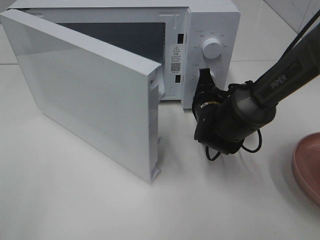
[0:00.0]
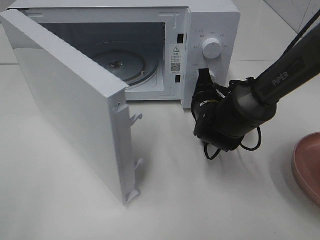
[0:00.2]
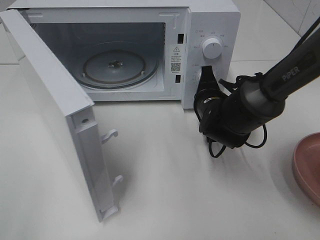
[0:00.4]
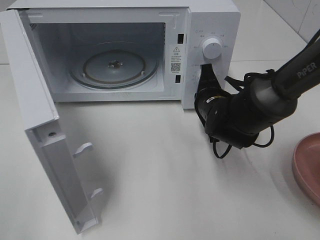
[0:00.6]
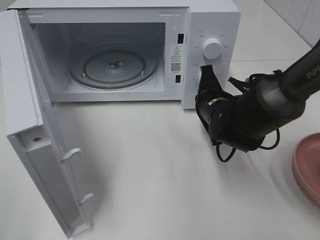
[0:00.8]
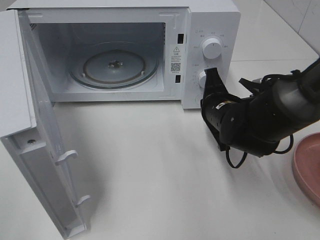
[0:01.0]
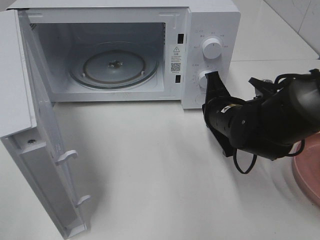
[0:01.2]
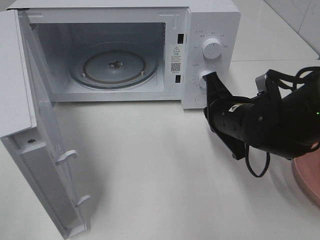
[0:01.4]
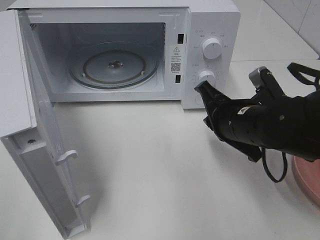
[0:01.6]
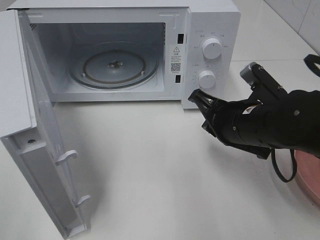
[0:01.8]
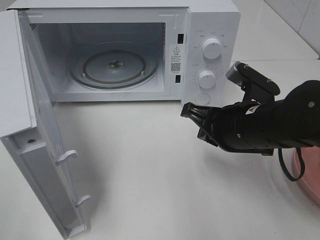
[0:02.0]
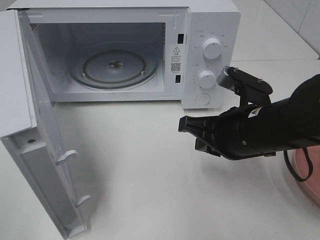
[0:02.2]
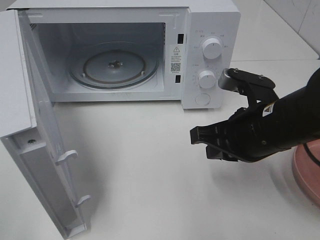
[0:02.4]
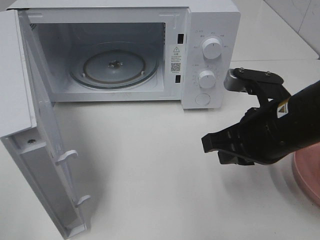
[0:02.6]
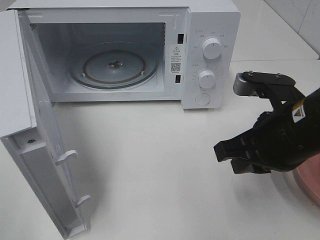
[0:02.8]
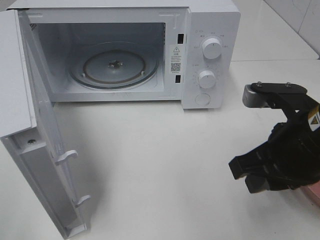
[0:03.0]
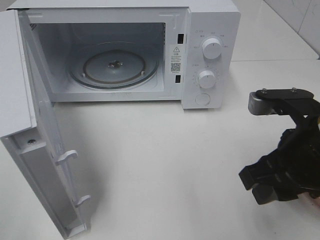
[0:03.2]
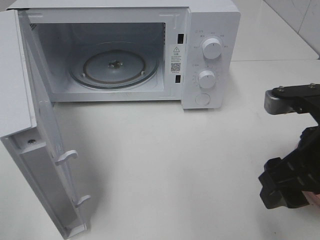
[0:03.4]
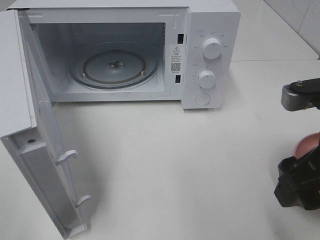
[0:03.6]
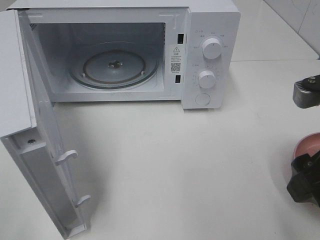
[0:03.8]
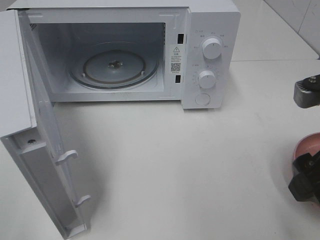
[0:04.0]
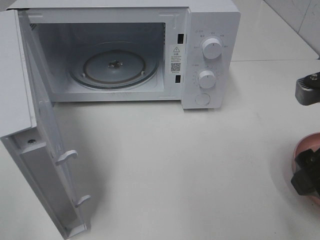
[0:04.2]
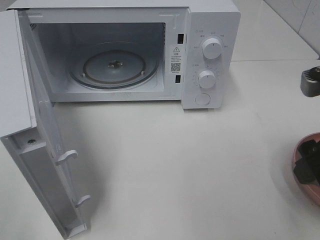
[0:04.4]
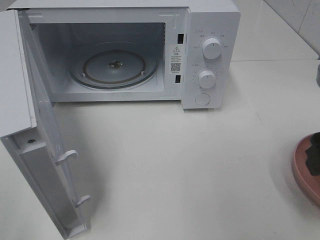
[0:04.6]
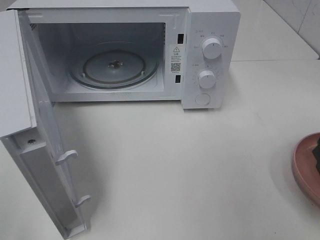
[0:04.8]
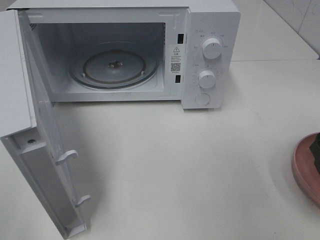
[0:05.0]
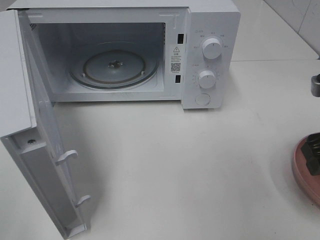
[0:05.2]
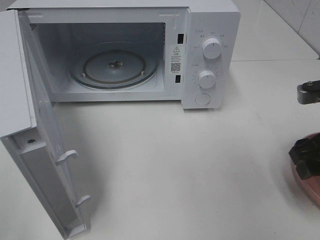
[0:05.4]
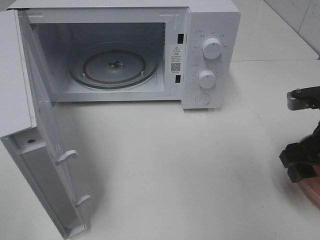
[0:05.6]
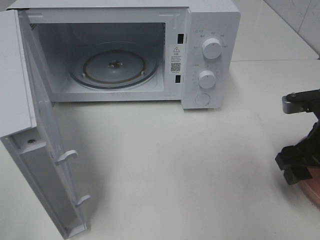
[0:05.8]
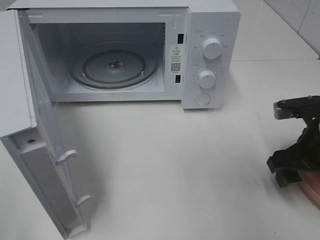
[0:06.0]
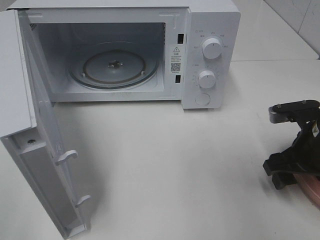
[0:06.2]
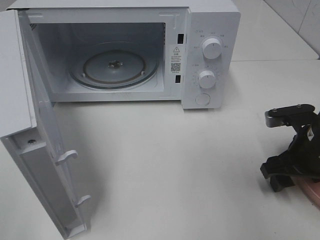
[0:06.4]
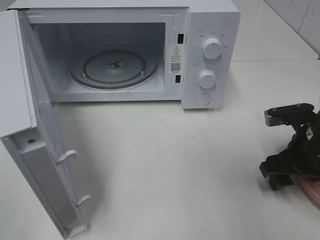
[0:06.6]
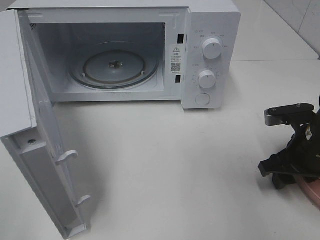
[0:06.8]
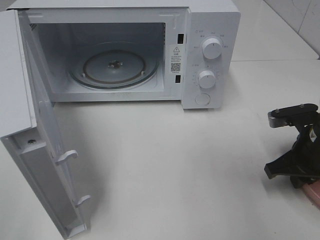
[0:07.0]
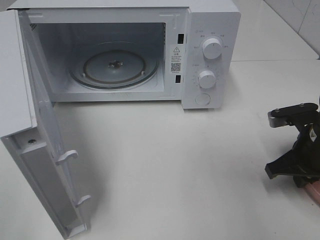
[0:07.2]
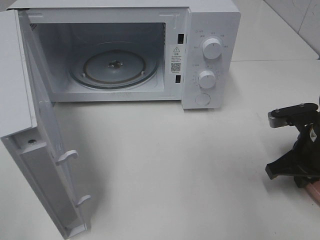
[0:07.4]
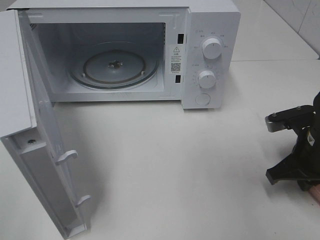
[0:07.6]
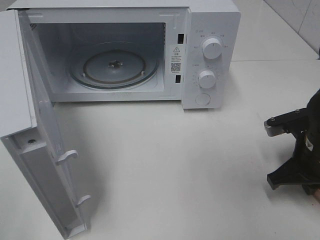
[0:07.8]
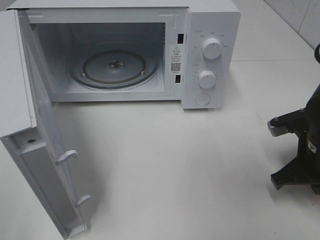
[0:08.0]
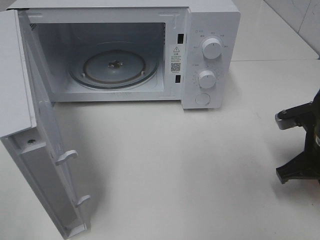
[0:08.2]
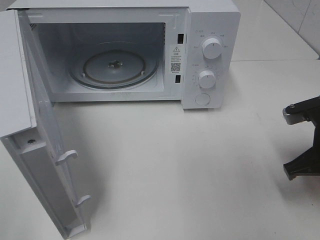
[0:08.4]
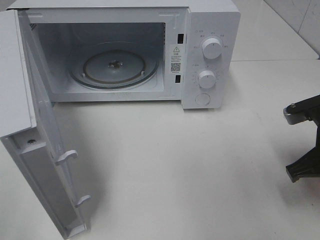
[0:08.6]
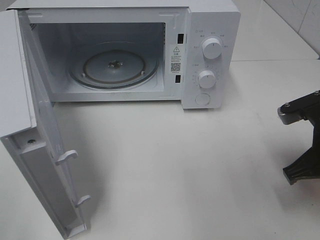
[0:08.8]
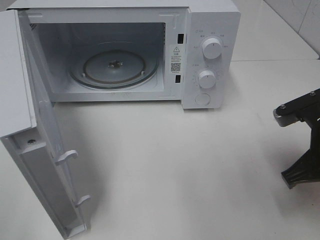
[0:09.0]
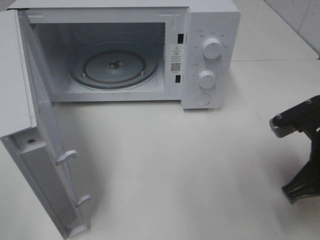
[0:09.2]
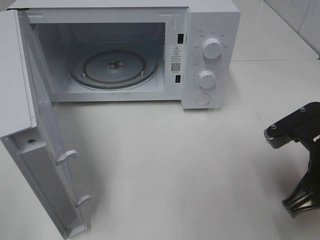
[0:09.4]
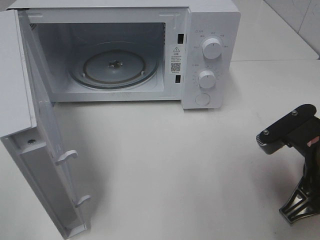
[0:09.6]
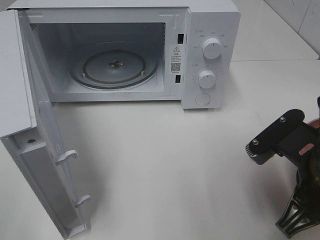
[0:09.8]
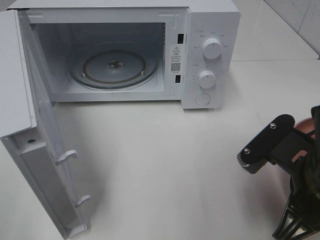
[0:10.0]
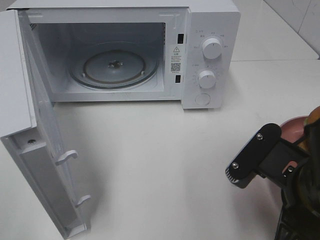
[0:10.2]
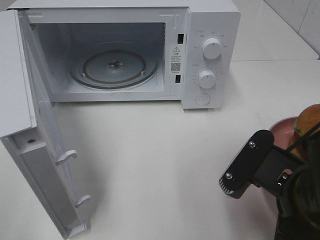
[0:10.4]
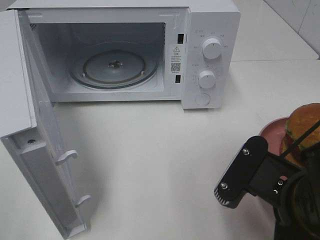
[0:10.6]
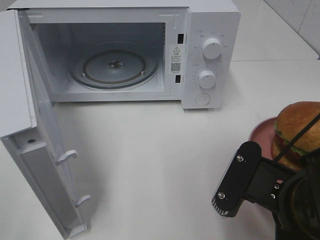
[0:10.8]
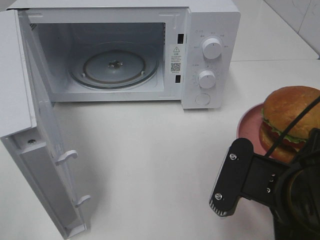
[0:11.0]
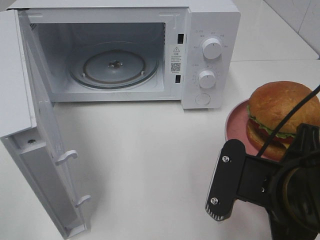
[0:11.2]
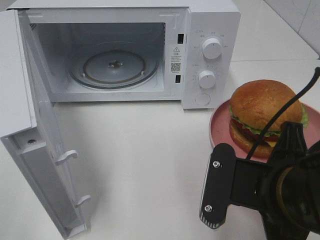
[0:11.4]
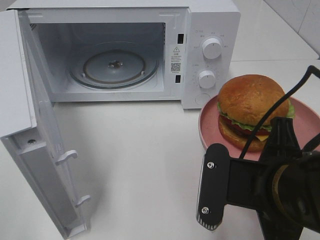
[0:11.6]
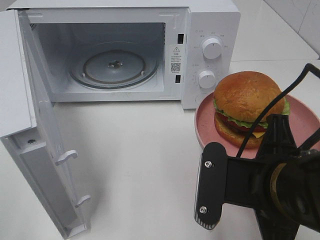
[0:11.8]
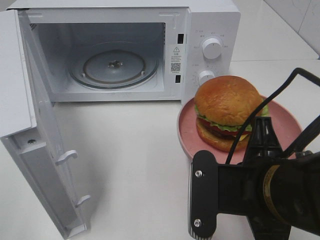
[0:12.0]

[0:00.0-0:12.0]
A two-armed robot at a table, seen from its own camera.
Task of the whole recording: Heat the burger.
Step, 0:01.0 to 0:07.4: Right hand: grab the plate with the hamburger.
0:00.0 to 0:01.6: The right gripper goes some 10 cm backward and upward.
0:01.6 to 0:03.0: The right gripper travels backward and upward by about 10 cm.
0:03.0 to 0:04.4: The right gripper travels to the right by about 5 cm, and opens up.
0:04.4 to 0:06.0: The right gripper shifts some 15 cm downward and forward.
0:06.0 to 0:07.6: The right gripper closes up.
0:07.6 to 0:09.0: The right gripper is displaced upward by some 5 cm.
0:09.0 to 0:10.4: The right gripper goes approximately 10 cm backward and to the left.

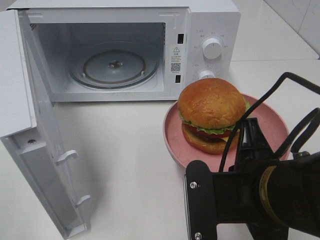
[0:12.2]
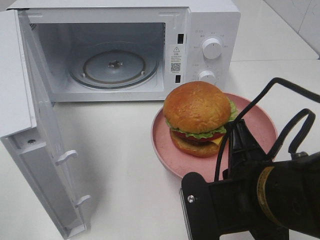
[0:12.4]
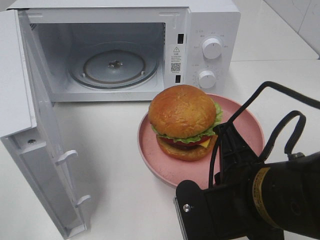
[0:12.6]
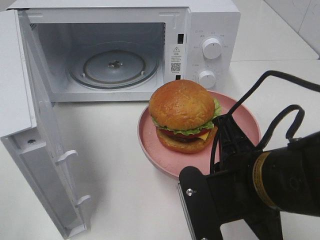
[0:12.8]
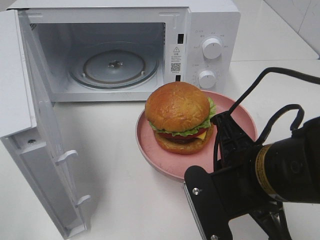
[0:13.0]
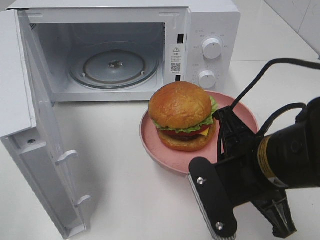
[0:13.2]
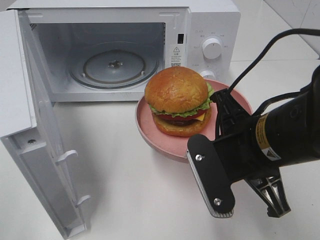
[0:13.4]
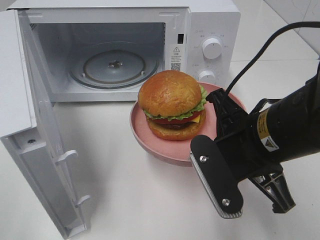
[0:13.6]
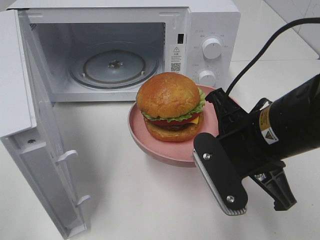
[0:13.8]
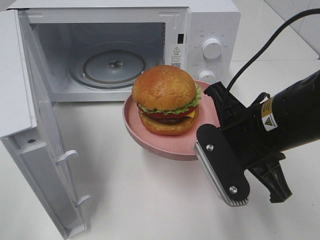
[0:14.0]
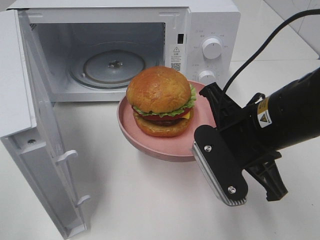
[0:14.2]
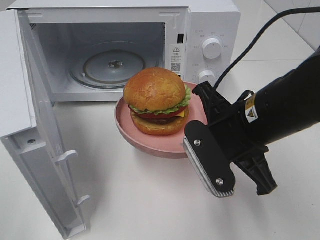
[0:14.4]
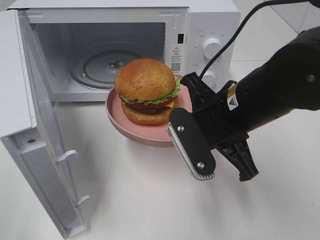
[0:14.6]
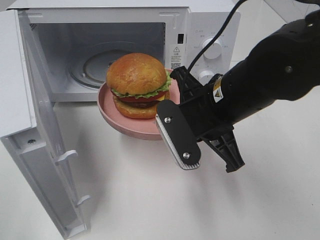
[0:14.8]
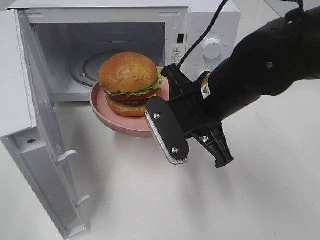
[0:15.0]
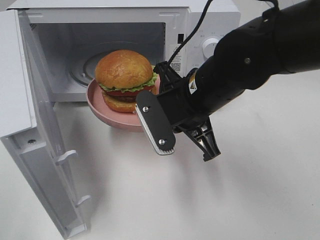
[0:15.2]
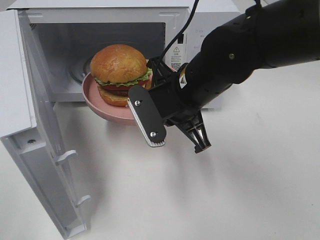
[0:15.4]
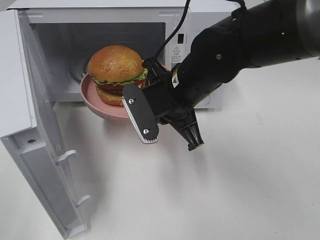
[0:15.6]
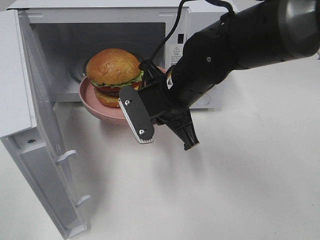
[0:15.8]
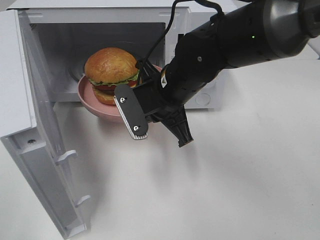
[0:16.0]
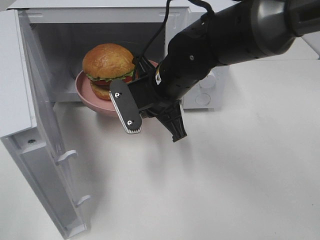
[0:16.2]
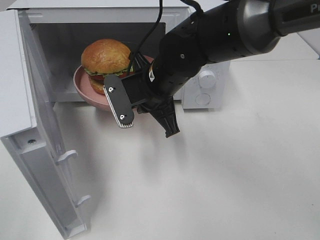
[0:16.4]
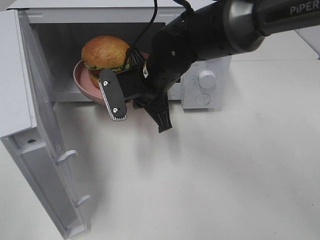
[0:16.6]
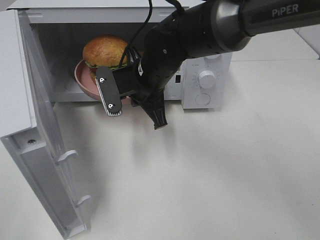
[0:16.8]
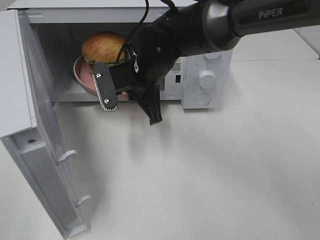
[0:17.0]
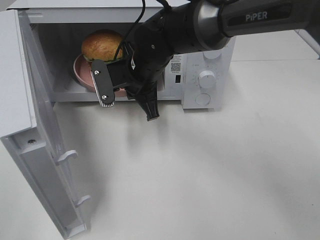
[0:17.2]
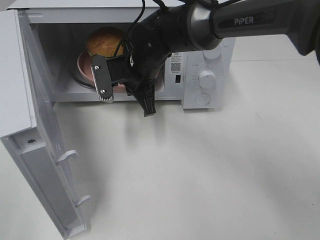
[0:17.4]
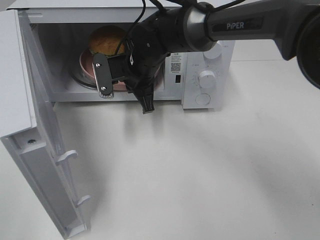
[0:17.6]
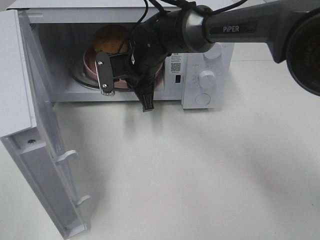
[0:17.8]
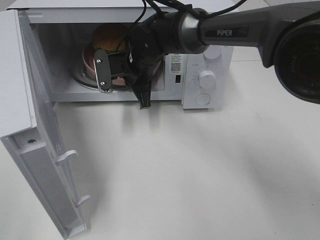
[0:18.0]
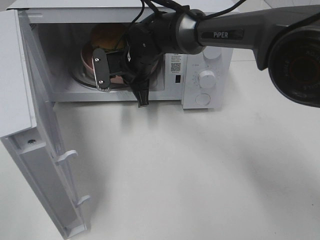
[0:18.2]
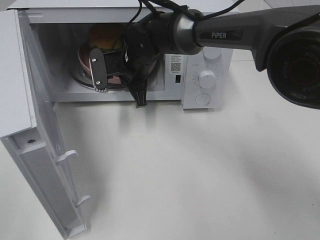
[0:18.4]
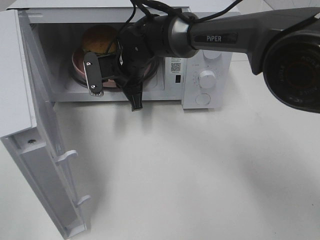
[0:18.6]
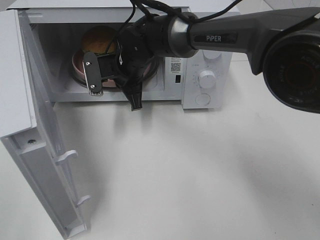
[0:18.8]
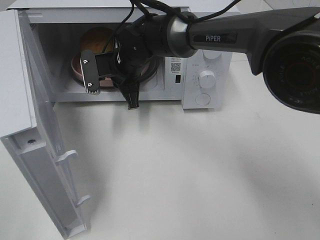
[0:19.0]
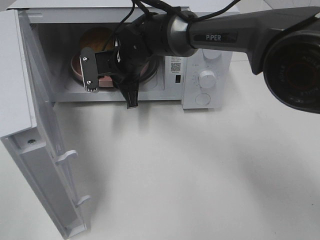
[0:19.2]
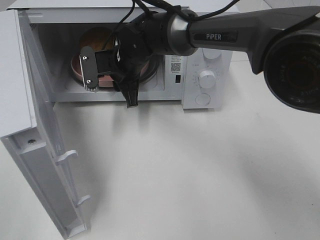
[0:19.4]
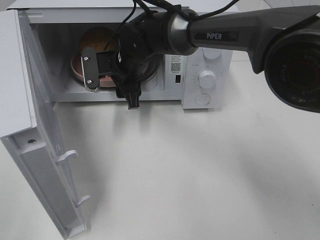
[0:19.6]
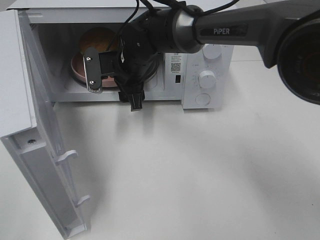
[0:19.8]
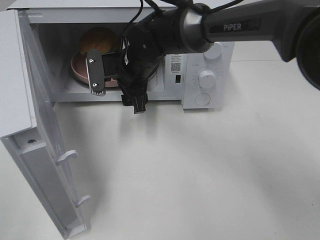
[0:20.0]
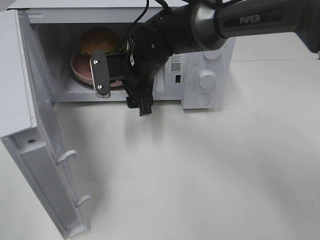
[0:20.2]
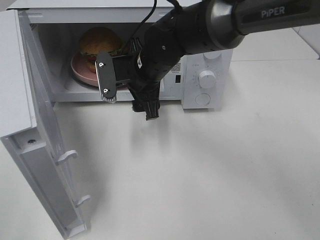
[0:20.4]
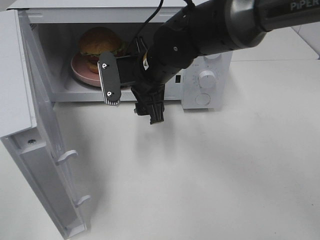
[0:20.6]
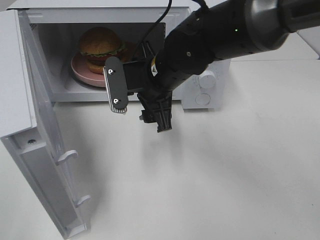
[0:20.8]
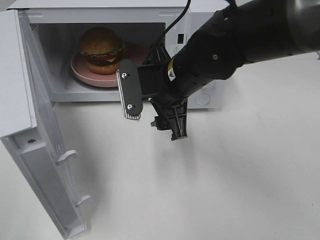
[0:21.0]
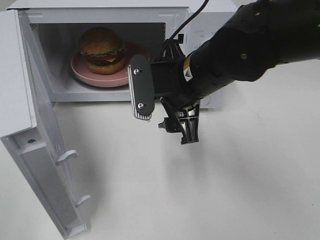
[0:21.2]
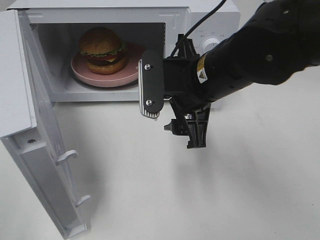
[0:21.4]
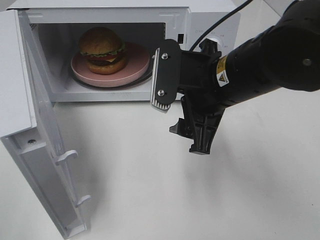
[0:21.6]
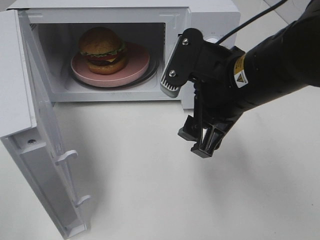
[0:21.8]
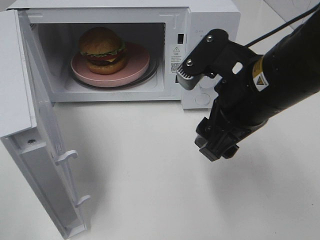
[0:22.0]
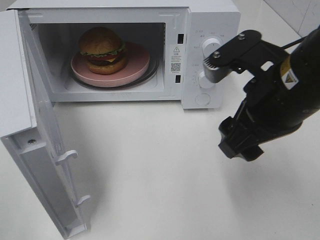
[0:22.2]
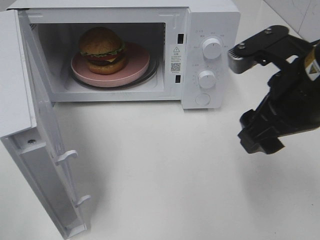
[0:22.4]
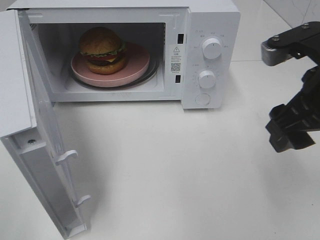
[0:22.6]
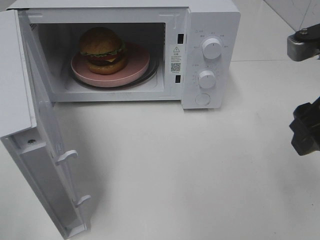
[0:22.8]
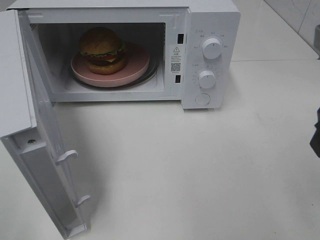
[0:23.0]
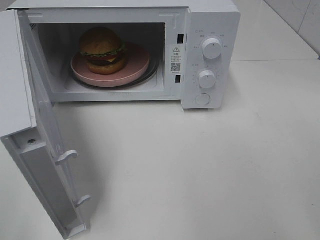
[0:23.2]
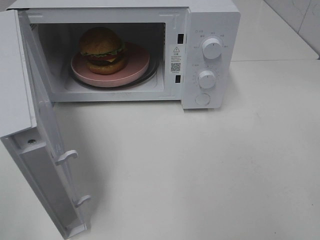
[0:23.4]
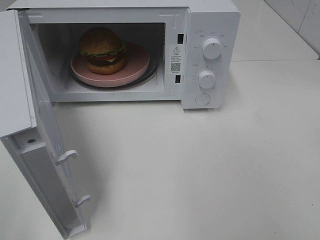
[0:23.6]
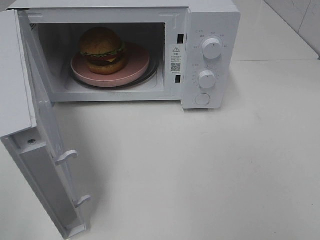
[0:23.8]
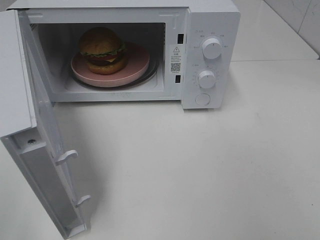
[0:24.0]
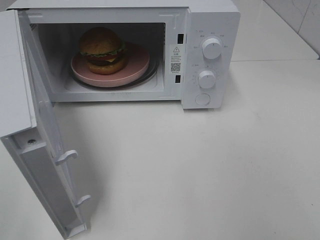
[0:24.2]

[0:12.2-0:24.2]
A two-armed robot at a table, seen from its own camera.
Task of the whole recording: Heat the burger.
Step, 0:12.2 to 0:19.2: Right hand: place the plate in the microwave.
0:12.2 to 0:13.8: The right gripper moves forward, roughly 5 cm.
0:13.8 to 0:15.2: The right gripper is displaced forward and to the left by approximately 10 cm.
0:15.2 to 0:16.6: The right gripper shifts approximately 10 cm forward and to the left.
0:16.6 to 0:18.2: The right gripper heads forward, covering approximately 10 cm.
0:18.2 to 0:19.8: The right gripper opens.
0:19.8 to 0:21.2: The right gripper moves backward, to the right and upward, about 15 cm.
0:21.2 to 0:22.6: The right gripper travels to the right, backward and upward by approximately 15 cm.
0:22.6 to 0:24.2: The right gripper heads backward and to the right, covering about 20 cm.
